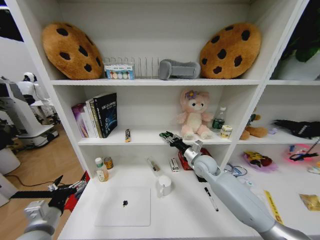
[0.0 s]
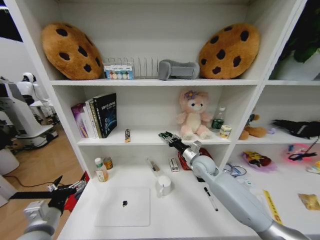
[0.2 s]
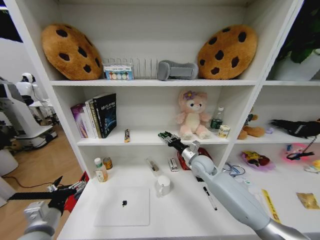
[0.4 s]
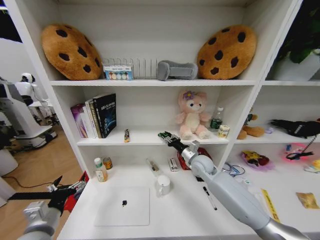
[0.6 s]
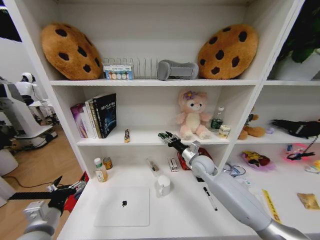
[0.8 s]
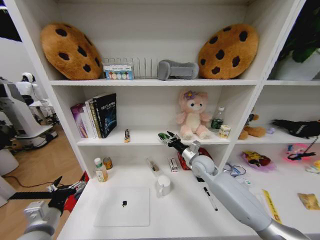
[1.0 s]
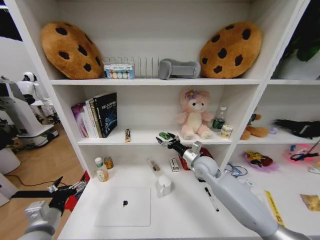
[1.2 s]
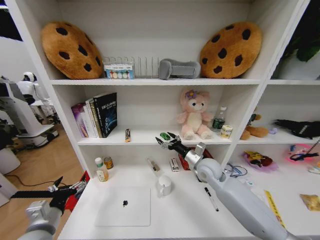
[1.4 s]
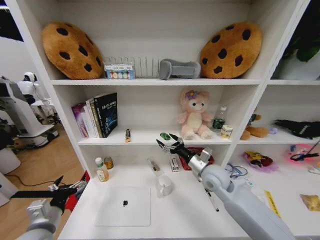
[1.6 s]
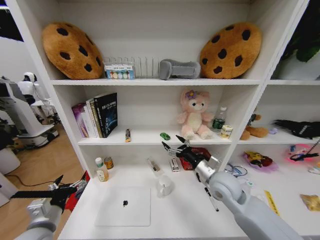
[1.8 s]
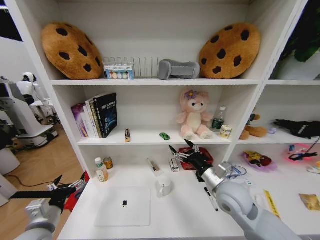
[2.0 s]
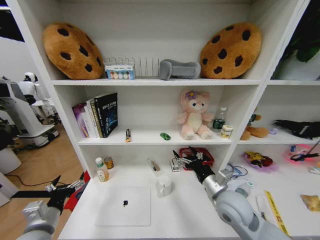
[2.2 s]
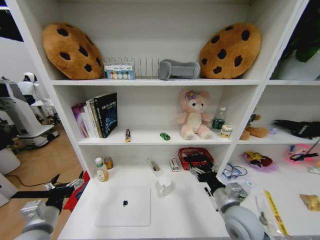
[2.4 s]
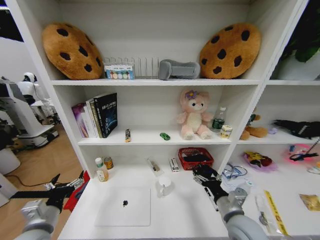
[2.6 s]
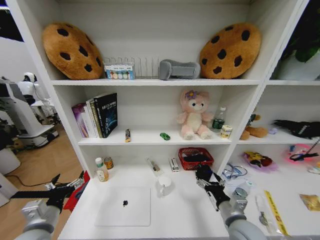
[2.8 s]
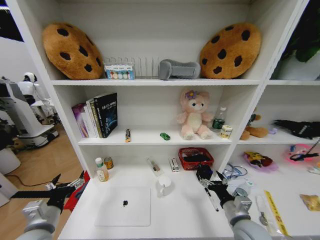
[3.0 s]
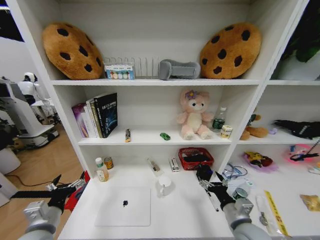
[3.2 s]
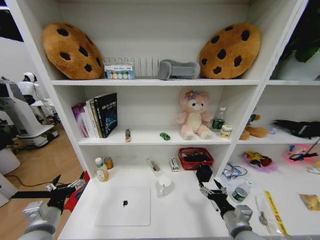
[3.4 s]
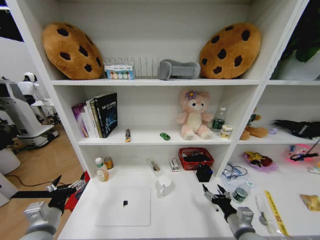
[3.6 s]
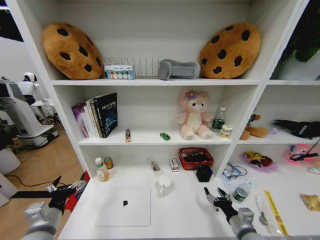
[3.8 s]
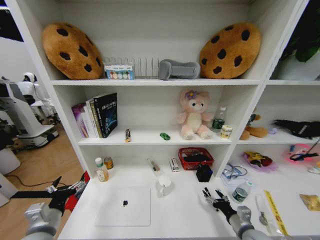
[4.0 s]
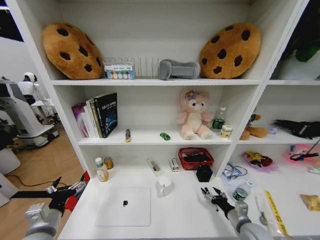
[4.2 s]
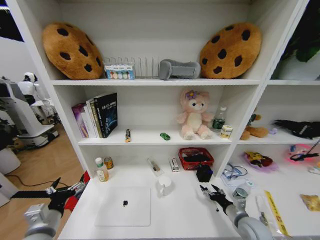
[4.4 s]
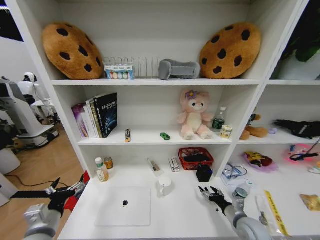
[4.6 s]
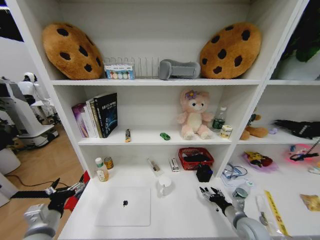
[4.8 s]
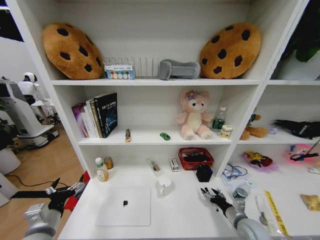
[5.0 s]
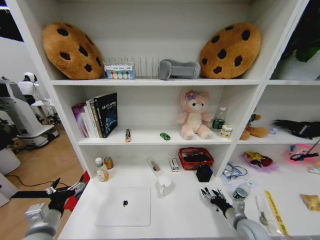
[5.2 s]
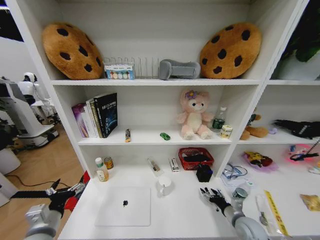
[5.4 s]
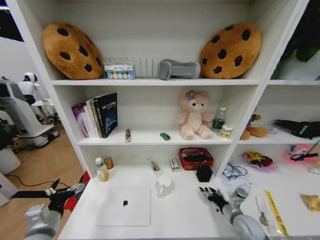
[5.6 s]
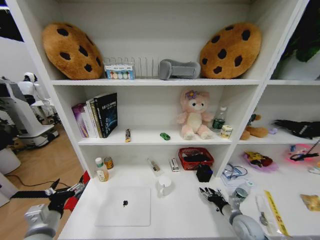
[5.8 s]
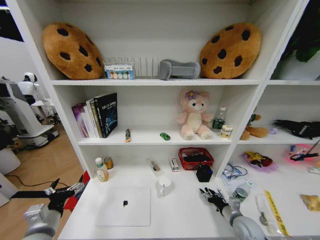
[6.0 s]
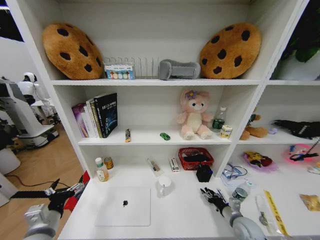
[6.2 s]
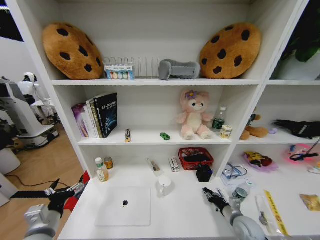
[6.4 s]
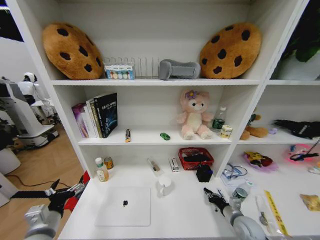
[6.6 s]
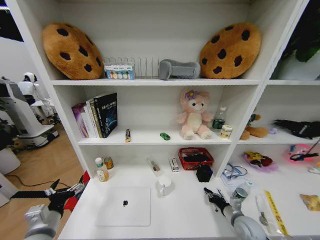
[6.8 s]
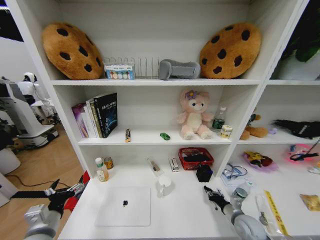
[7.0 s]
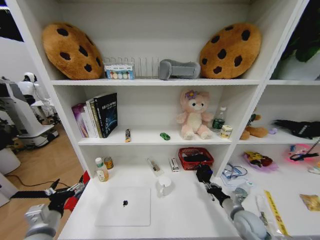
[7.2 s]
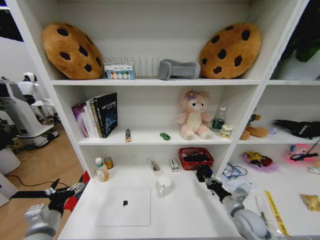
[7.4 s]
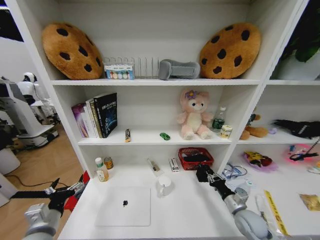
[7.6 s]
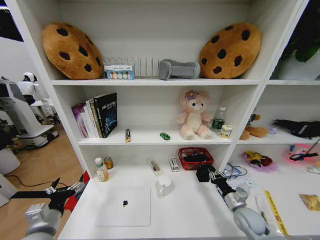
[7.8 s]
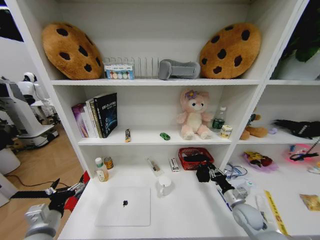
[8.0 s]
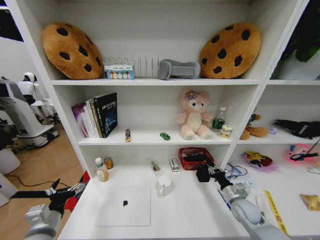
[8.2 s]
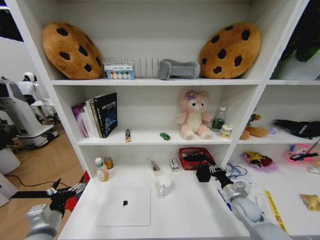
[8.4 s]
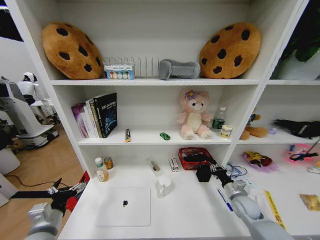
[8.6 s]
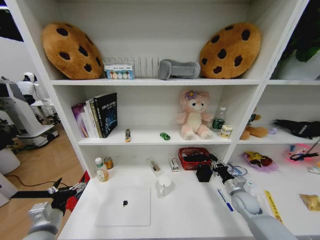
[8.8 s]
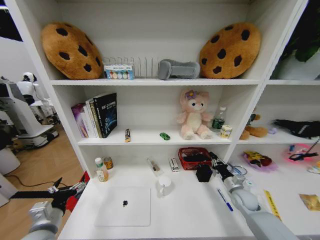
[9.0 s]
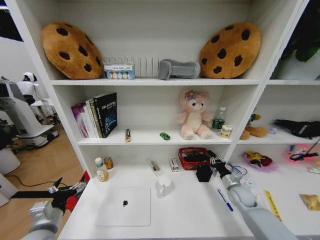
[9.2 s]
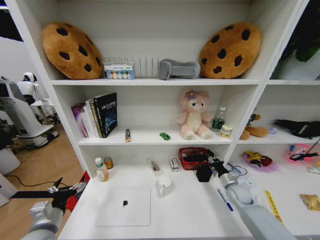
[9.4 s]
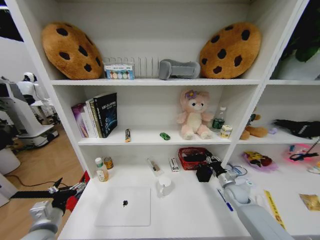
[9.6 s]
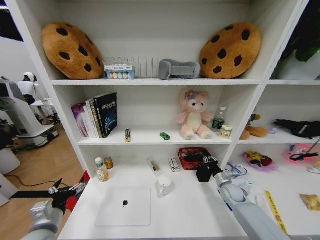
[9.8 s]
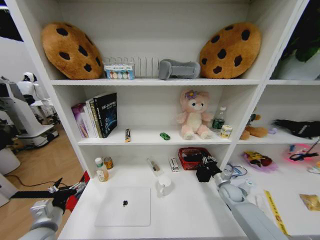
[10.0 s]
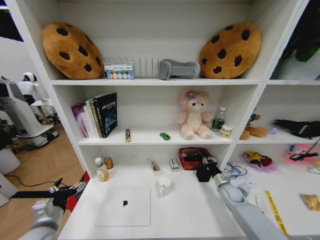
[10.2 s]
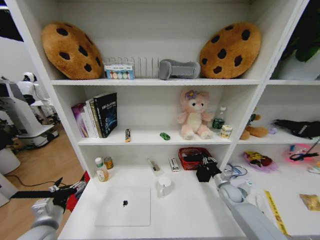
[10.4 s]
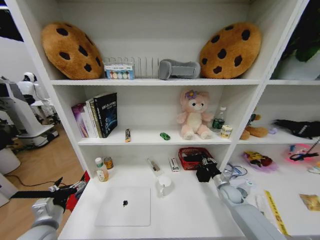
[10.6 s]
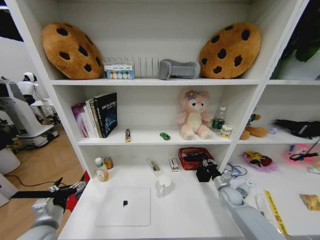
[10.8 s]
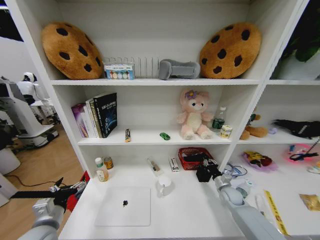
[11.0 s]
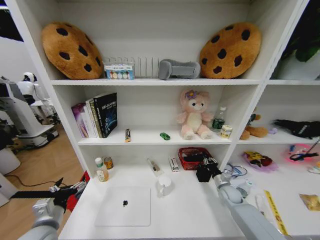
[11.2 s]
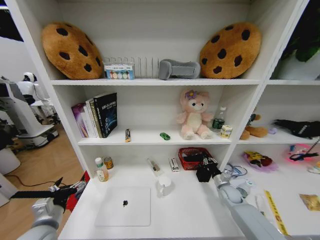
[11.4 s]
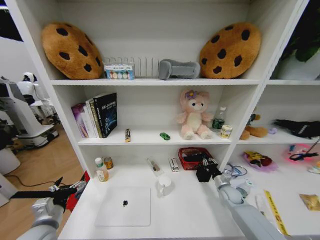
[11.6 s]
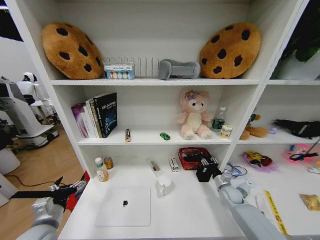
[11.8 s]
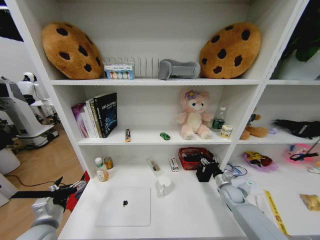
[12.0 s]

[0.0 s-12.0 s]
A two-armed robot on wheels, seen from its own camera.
Task of the whole recording: Organize the objects on the table.
0.0 to 1.6 s: The right gripper is displaced backward by roughly 10 cm, and opens up.
1.6 to 3.0 s: The right gripper moves backward, downward and to the right, approximately 20 cm.
3.0 to 4.4 s: The right gripper heads downward and to the right, covering approximately 10 cm.
4.4 to 6.0 s: The grippers stay close to where they were, moving slightly.
6.0 to 7.6 s: The right gripper closes its fingers.
7.6 to 9.0 s: The right gripper is displaced forward by about 10 cm.
9.0 to 10.4 s: The right gripper changes place by about 5 cm.

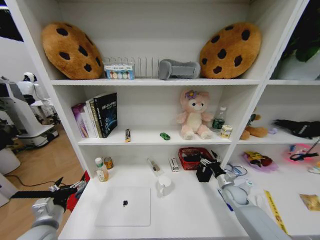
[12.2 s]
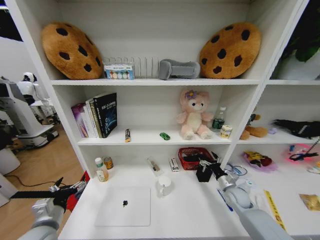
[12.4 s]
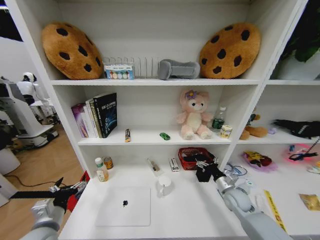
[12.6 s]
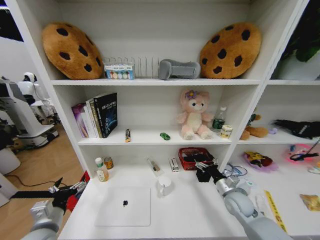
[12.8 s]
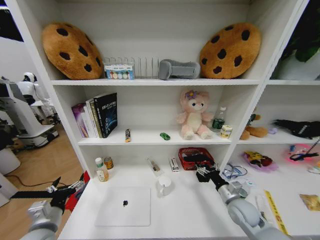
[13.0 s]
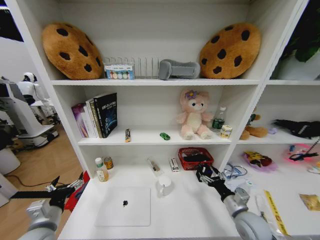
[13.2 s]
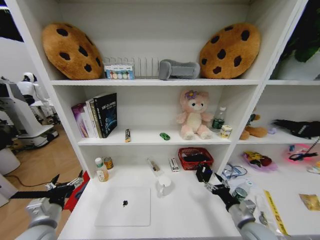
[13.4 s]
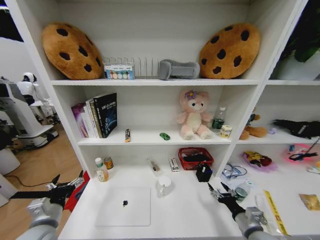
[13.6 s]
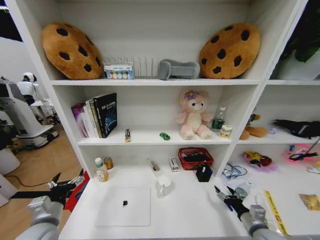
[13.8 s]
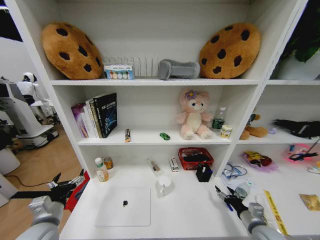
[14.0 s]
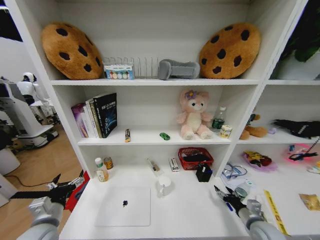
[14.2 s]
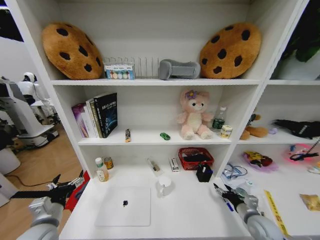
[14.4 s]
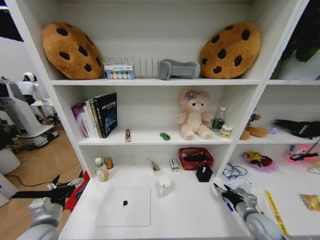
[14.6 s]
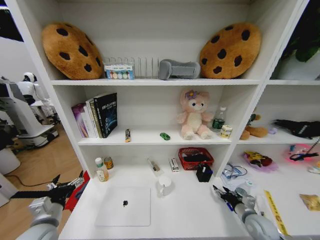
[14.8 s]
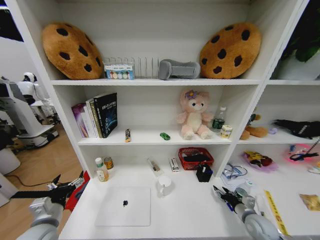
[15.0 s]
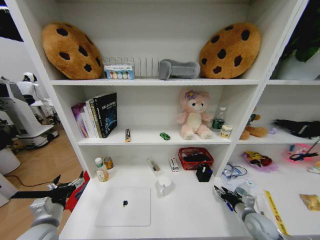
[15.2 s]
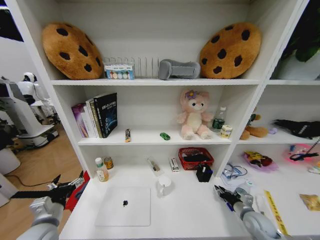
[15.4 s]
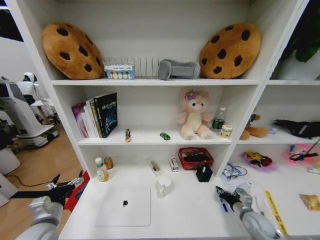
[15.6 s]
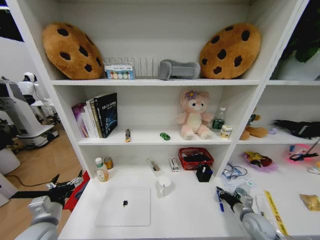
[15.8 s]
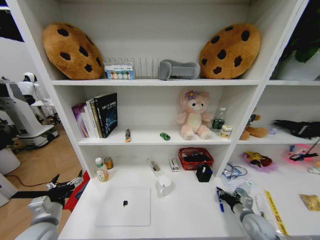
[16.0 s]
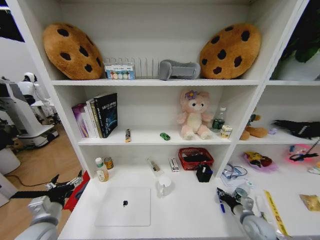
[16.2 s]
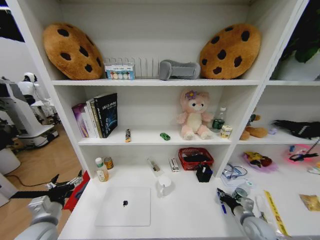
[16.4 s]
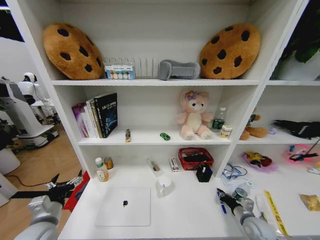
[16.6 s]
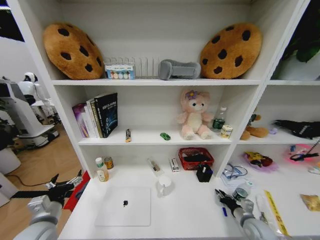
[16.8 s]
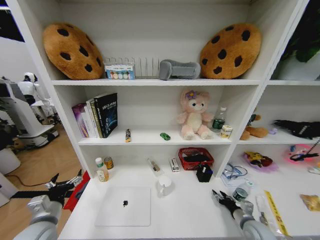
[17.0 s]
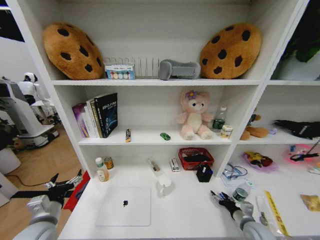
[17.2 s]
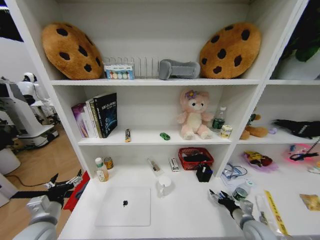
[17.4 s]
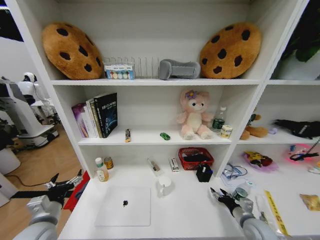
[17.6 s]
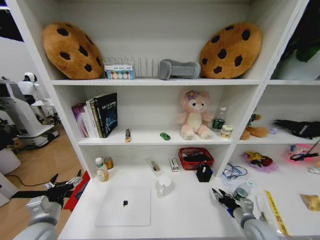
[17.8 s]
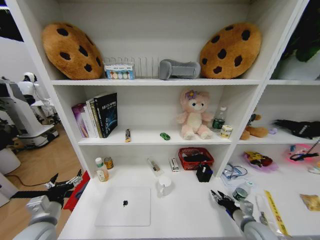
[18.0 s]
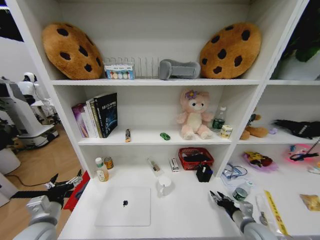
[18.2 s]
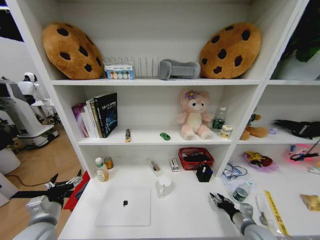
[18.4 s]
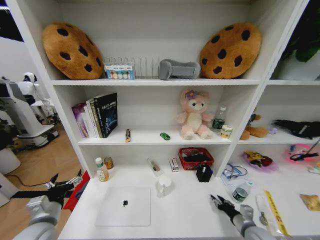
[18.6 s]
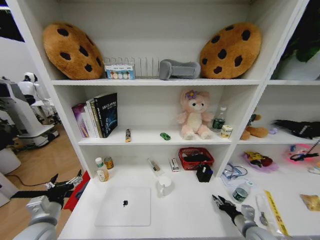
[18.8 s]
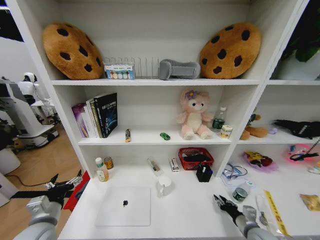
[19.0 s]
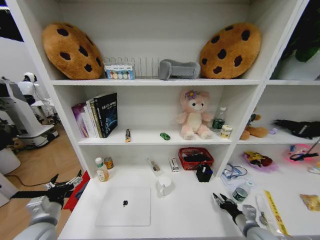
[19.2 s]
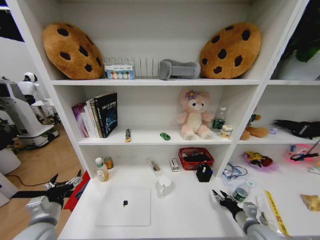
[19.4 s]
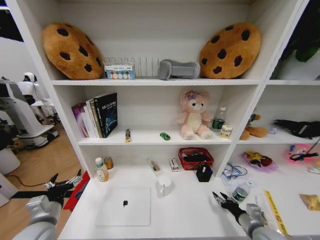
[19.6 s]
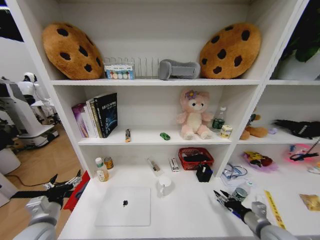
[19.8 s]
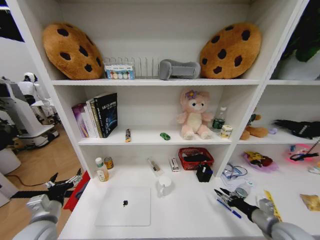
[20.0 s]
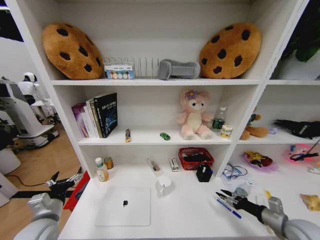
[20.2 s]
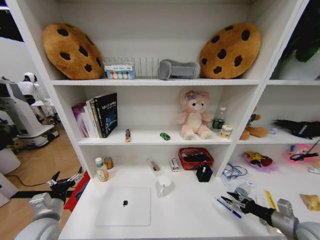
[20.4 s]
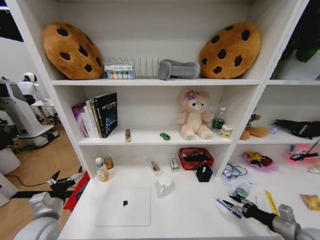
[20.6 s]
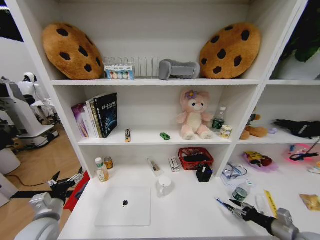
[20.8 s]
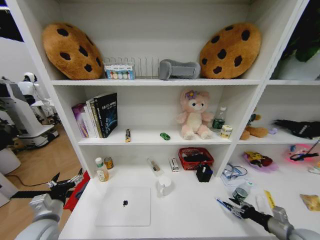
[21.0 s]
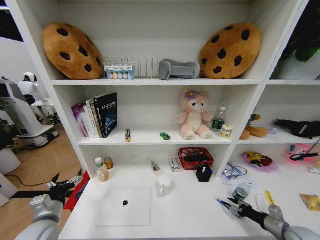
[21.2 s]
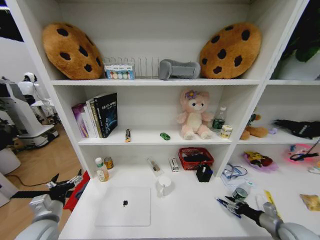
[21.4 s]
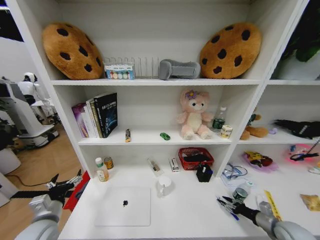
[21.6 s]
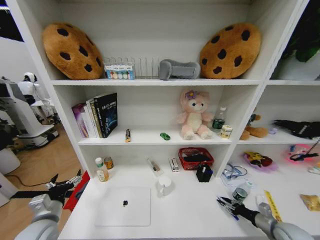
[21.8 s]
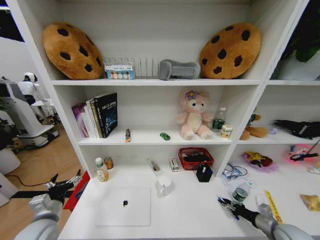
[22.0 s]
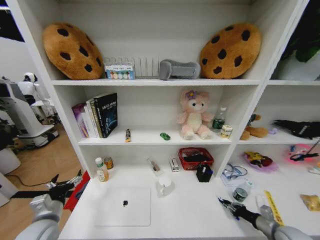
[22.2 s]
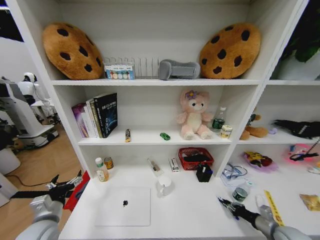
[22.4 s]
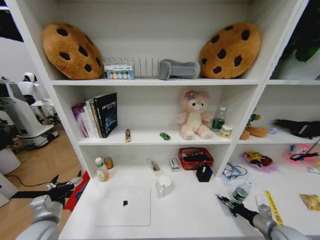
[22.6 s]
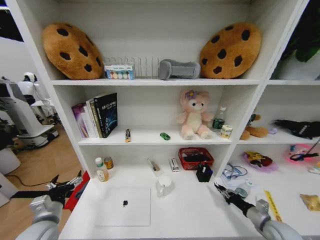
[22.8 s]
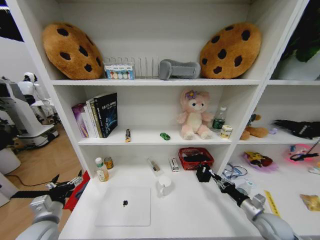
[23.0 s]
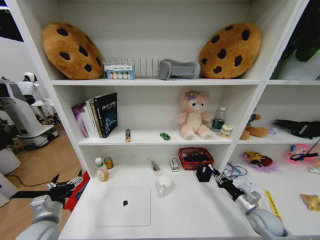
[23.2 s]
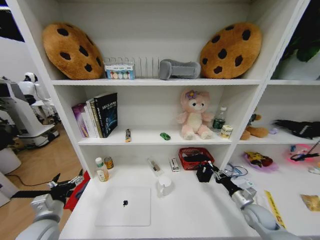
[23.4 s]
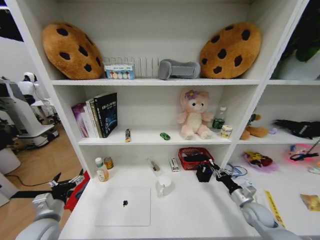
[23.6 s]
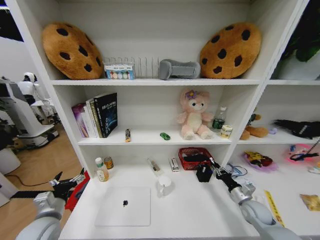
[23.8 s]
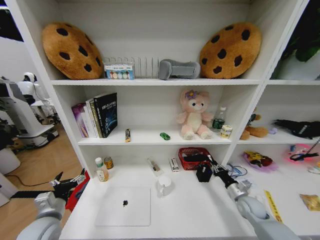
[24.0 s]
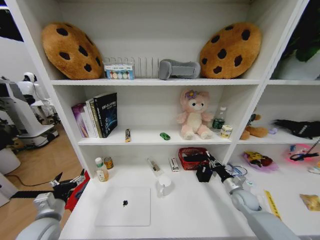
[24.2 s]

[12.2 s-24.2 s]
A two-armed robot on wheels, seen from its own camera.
Task of the whole recording: Organize the objects on the table.
12.2 to 13.8 s: The right gripper goes approximately 20 cm backward.
13.8 to 15.2 s: The right gripper goes approximately 5 cm forward.
15.2 to 16.6 s: The right gripper closes up.
16.6 to 18.2 s: The right gripper opens up.
18.2 to 19.8 s: The right gripper ends up roughly 5 cm from where it was.
19.8 to 21.2 s: The right gripper travels to the right by some 10 cm.
21.2 to 22.6 s: The right gripper closes up.
22.6 to 24.2 s: The right gripper goes some 15 cm forward and to the left.
